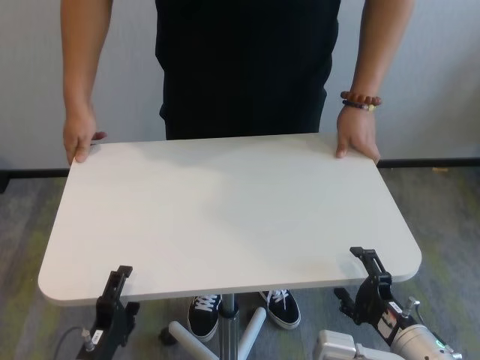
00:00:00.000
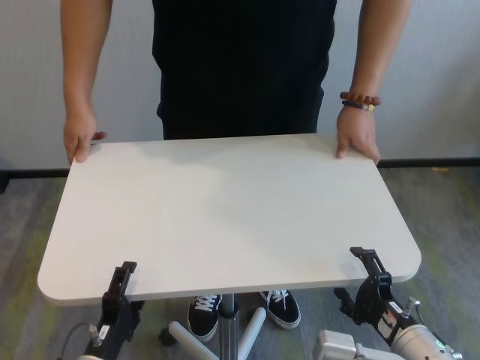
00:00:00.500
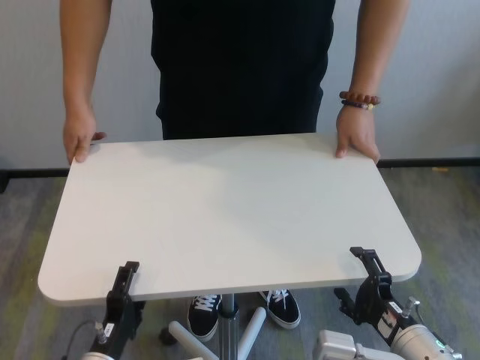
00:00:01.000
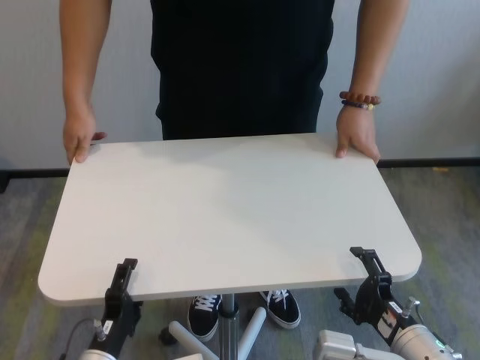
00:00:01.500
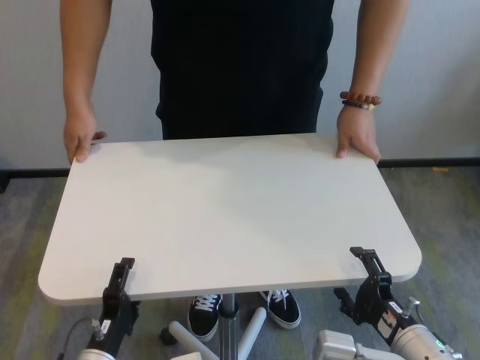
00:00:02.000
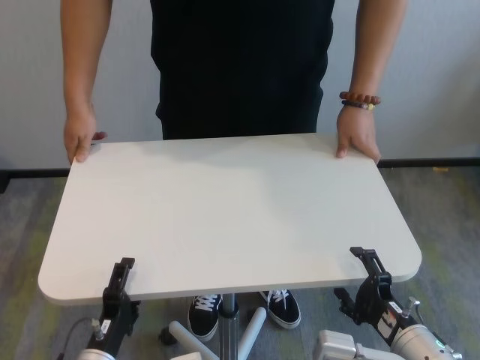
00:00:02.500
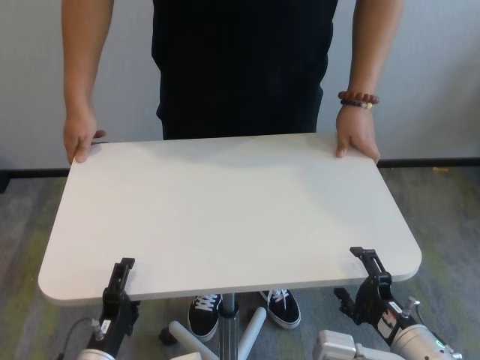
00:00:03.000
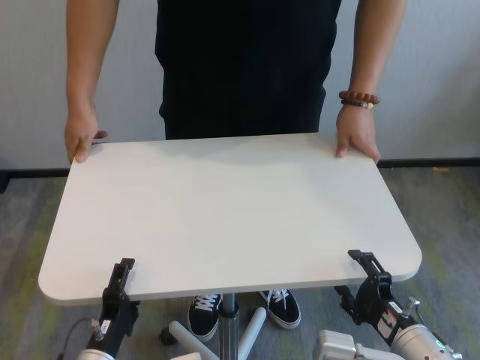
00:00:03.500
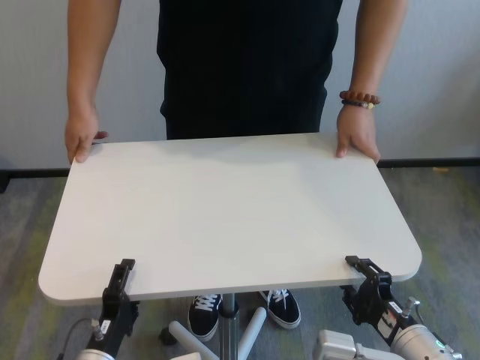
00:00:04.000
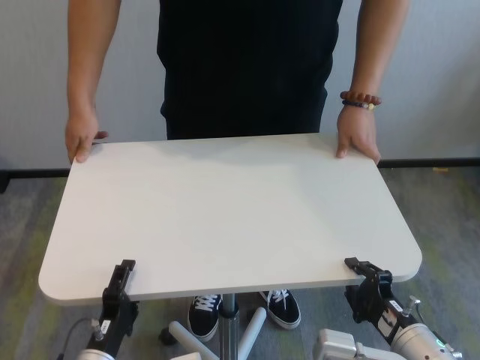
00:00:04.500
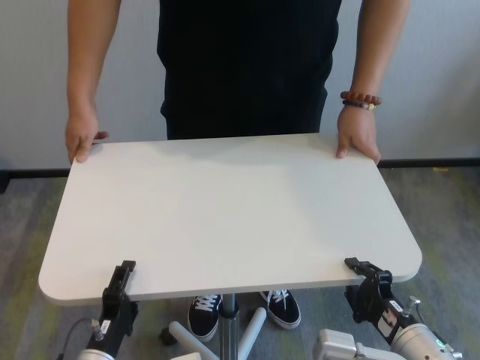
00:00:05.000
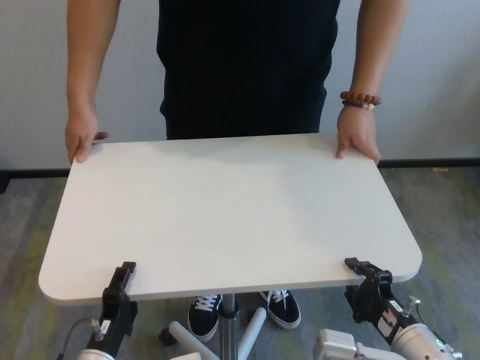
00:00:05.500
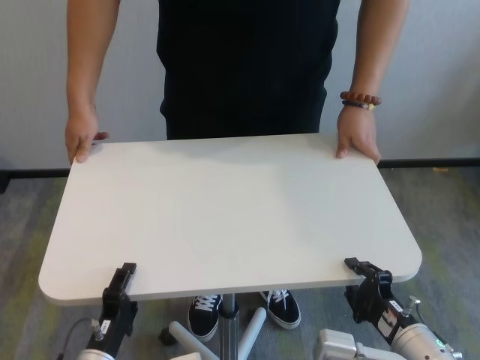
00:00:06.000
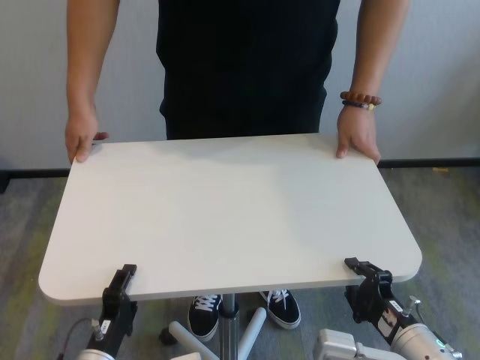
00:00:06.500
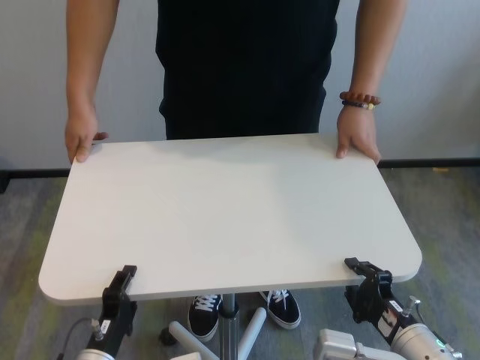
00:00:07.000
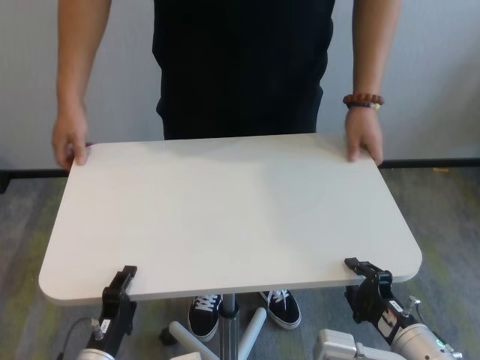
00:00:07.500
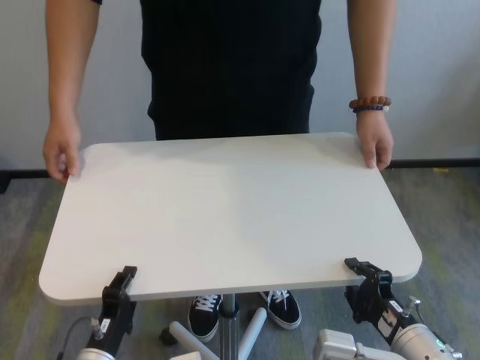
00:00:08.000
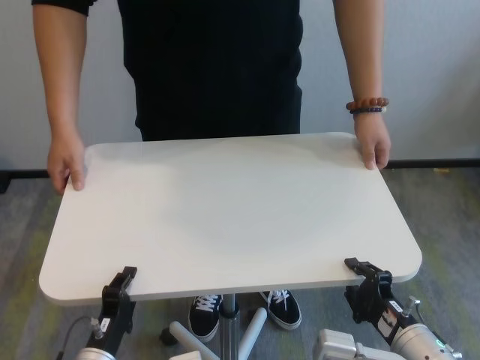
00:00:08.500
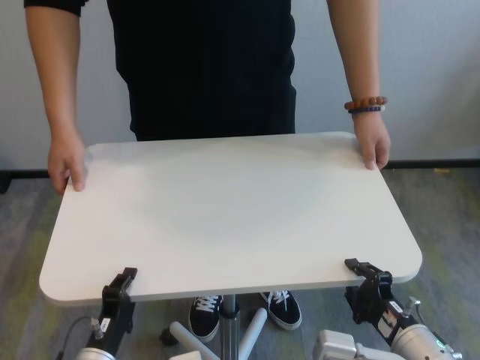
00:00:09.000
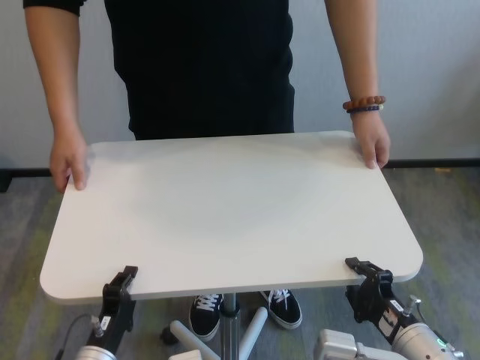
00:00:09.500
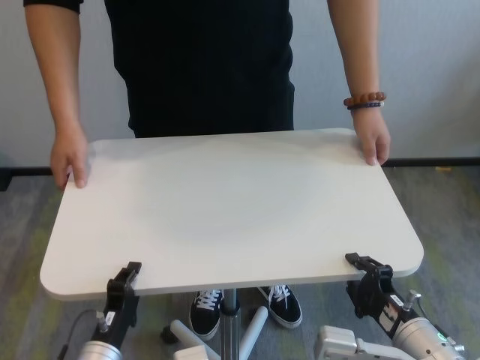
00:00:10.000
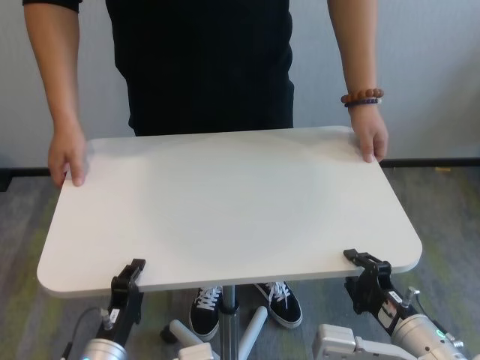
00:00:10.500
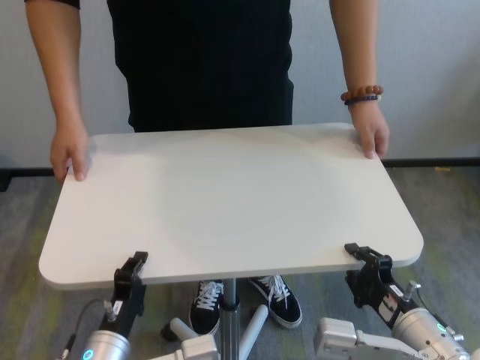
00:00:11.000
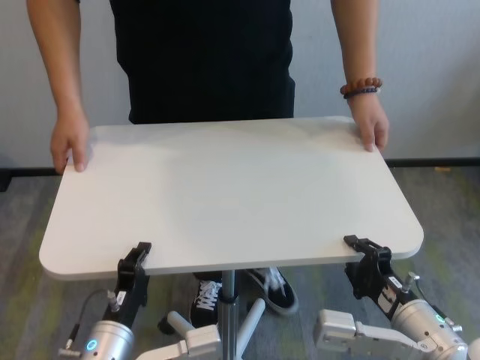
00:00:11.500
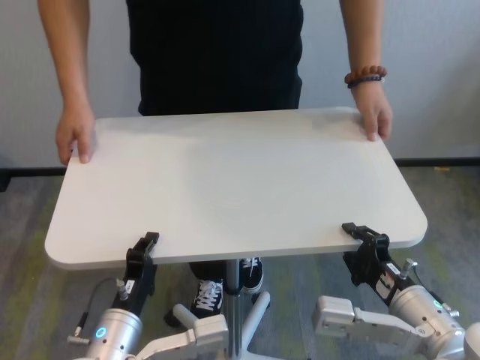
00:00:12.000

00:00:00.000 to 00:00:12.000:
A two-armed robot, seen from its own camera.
Task of the whole recording: human machine collaborative table moving.
Step, 00:00:00.000 to 00:00:09.000: Grasp the table with both grippers.

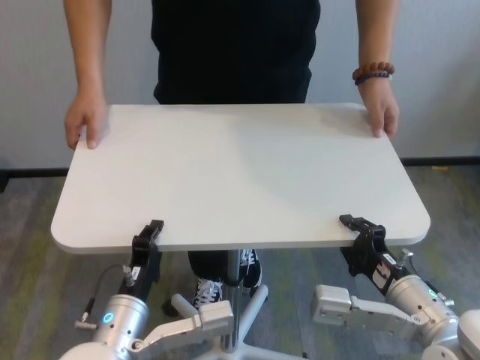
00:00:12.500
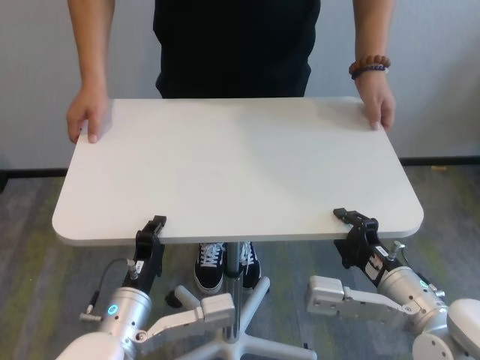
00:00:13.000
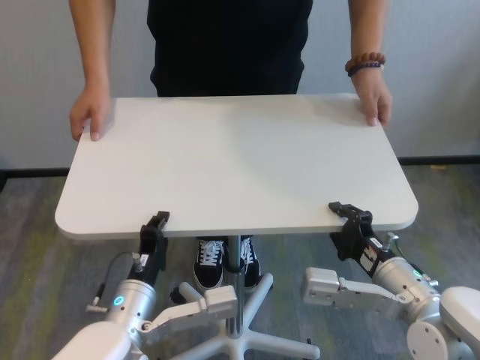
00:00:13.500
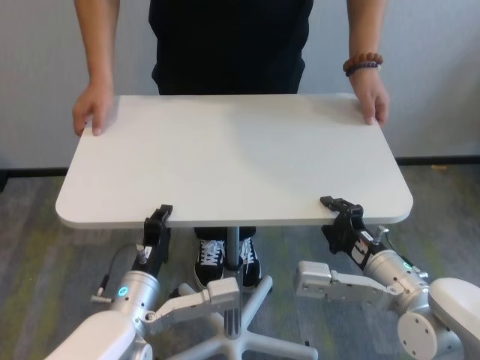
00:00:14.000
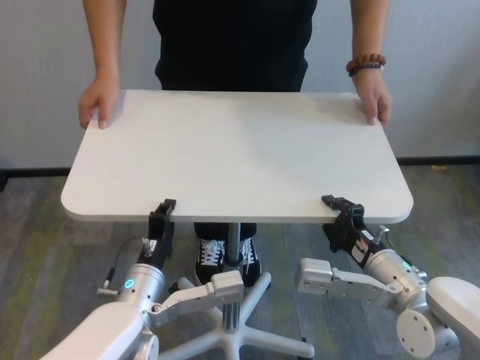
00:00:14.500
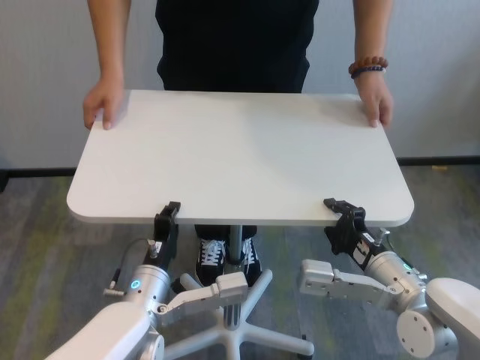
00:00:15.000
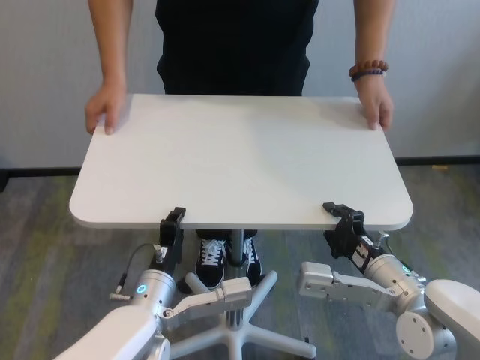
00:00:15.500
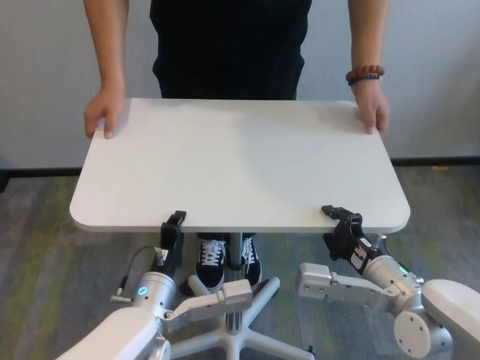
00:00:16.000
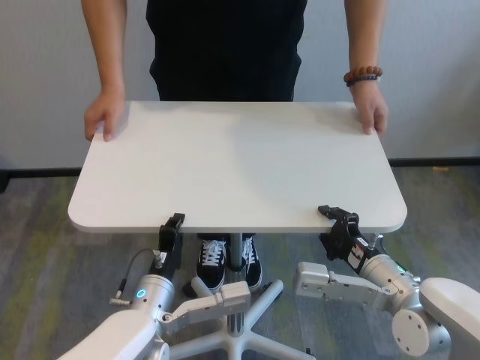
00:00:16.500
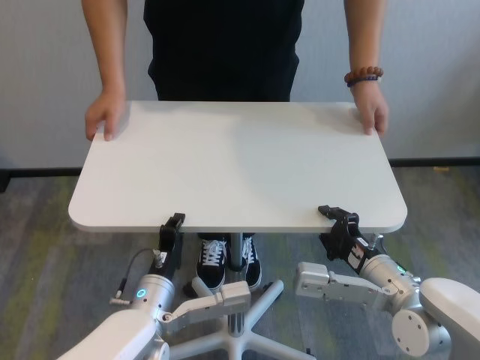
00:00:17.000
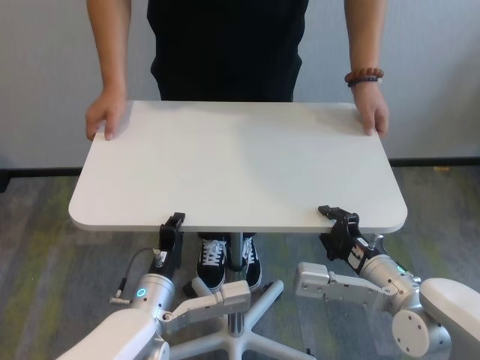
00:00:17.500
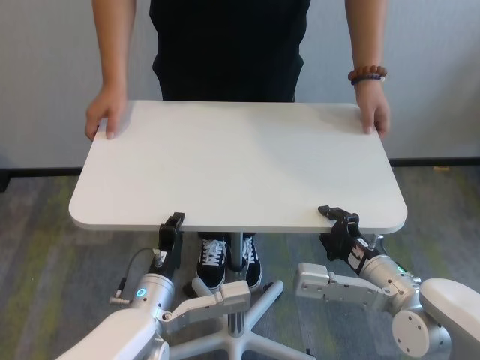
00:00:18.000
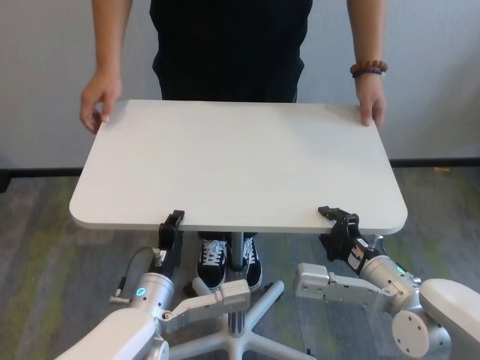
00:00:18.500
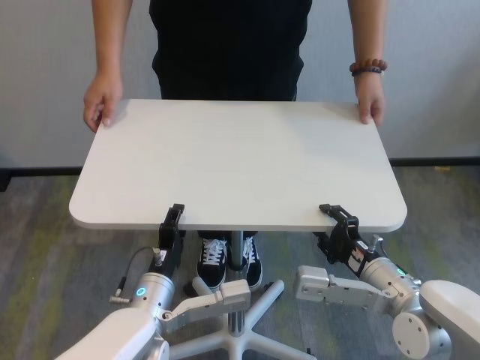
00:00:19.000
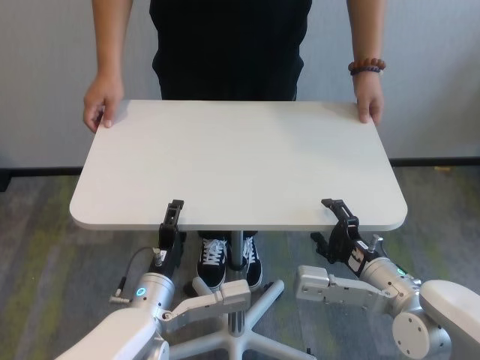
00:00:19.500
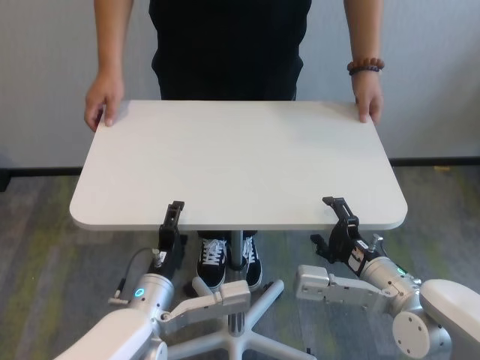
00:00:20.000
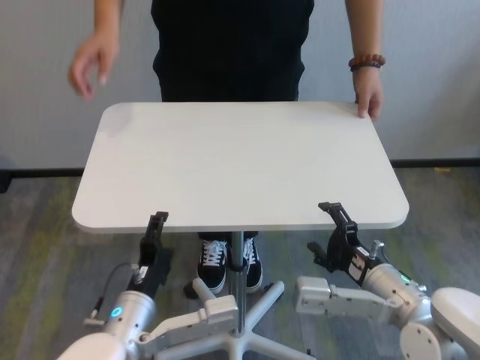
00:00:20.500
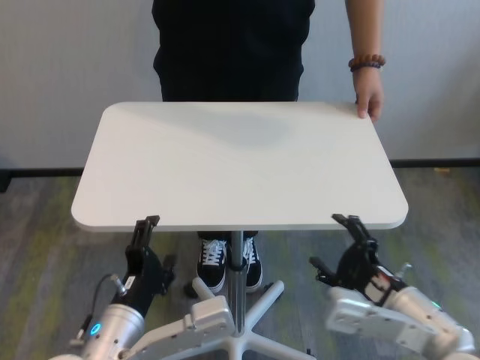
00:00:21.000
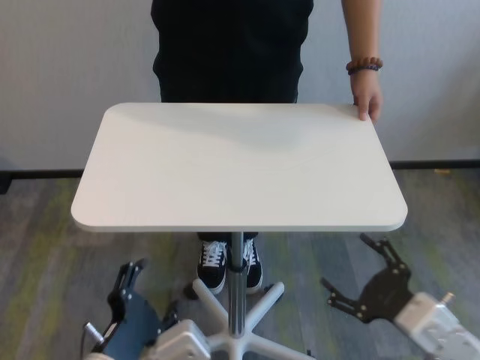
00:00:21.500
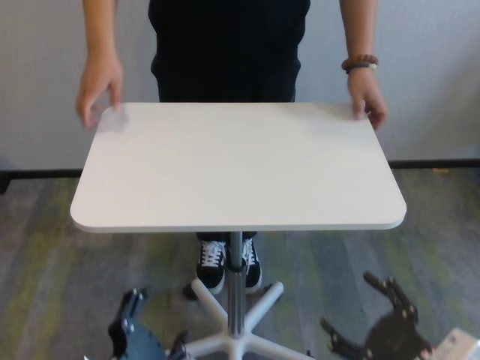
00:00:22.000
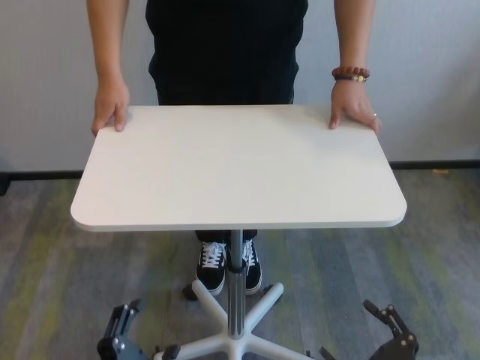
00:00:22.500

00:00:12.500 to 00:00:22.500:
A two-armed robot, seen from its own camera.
Task of the whole recording: human machine collaborative table moving.
Step, 00:00:12.500 to 00:00:19.500: Move the table forward with both grippers.
